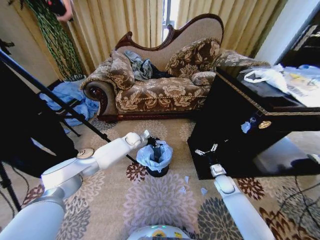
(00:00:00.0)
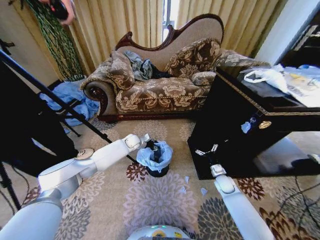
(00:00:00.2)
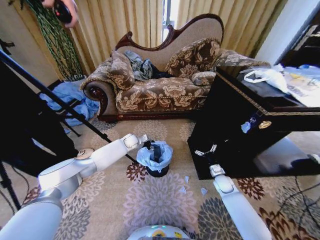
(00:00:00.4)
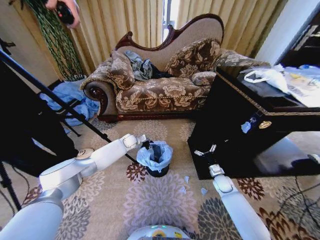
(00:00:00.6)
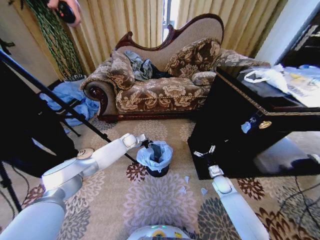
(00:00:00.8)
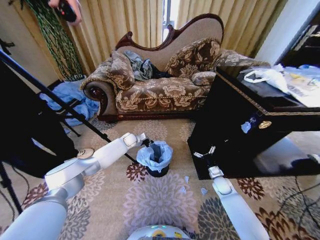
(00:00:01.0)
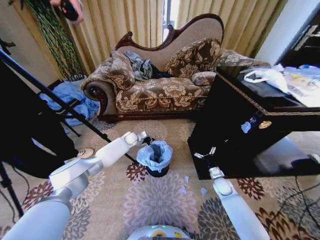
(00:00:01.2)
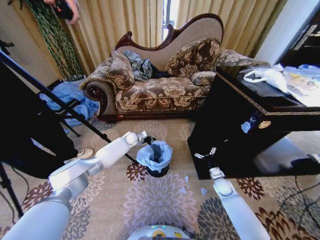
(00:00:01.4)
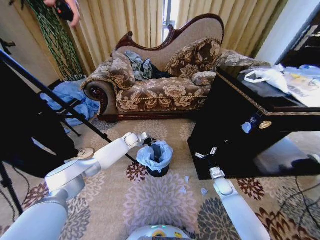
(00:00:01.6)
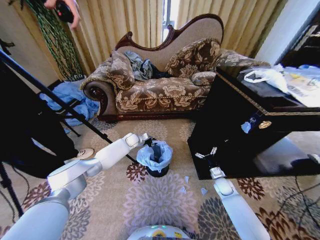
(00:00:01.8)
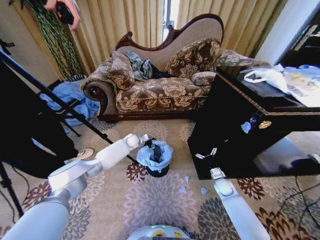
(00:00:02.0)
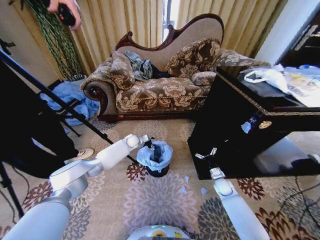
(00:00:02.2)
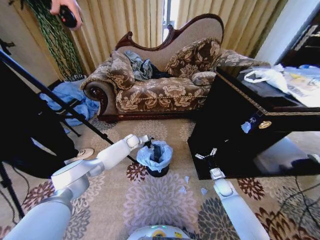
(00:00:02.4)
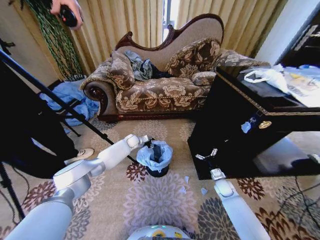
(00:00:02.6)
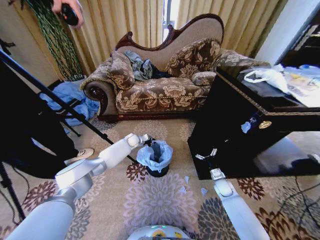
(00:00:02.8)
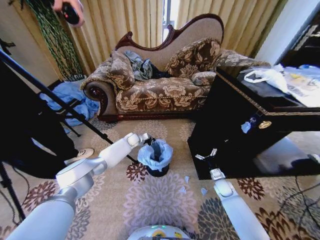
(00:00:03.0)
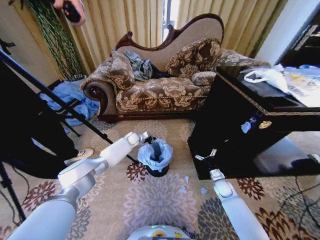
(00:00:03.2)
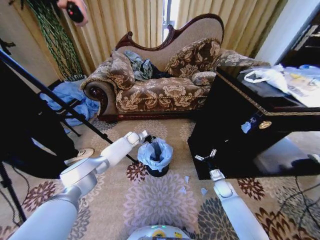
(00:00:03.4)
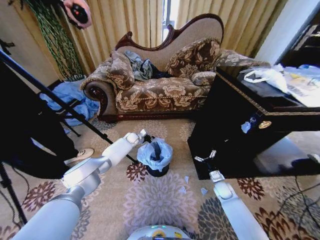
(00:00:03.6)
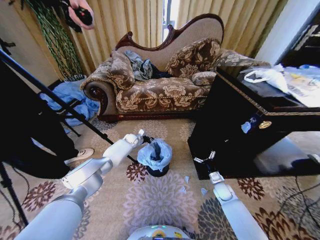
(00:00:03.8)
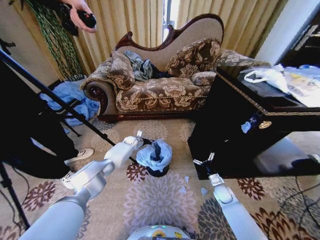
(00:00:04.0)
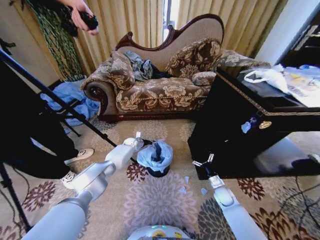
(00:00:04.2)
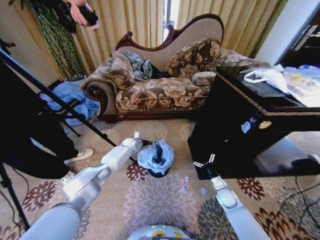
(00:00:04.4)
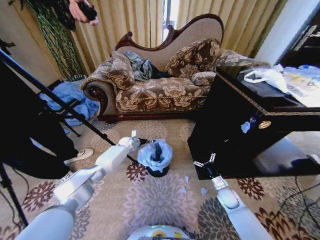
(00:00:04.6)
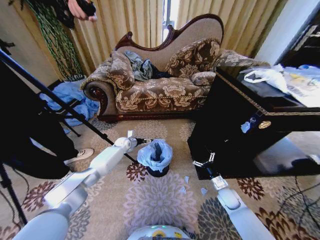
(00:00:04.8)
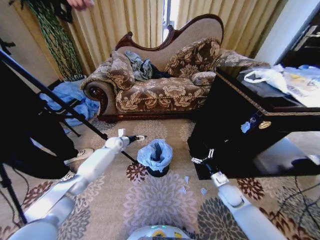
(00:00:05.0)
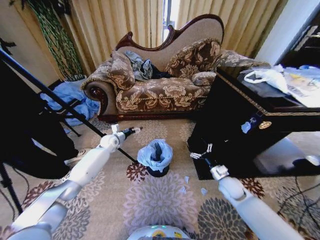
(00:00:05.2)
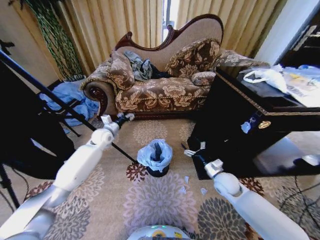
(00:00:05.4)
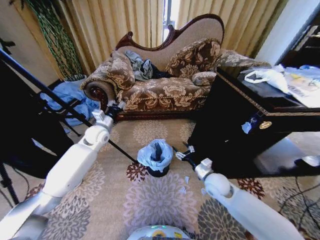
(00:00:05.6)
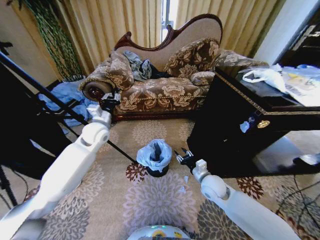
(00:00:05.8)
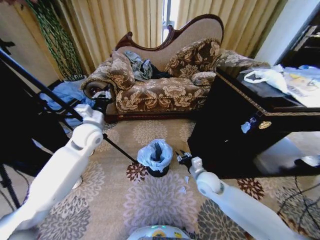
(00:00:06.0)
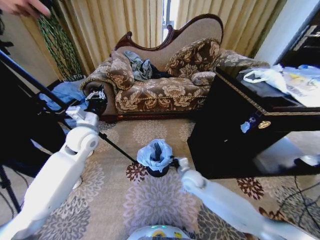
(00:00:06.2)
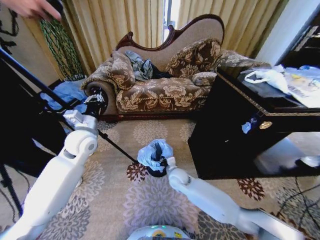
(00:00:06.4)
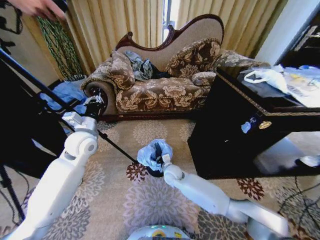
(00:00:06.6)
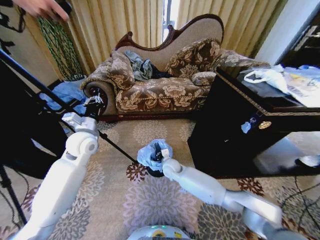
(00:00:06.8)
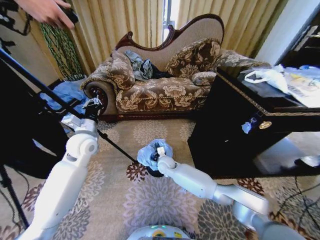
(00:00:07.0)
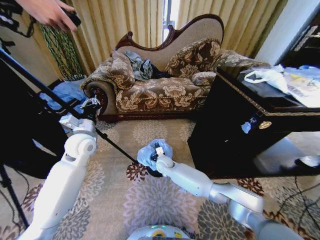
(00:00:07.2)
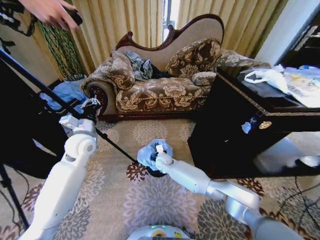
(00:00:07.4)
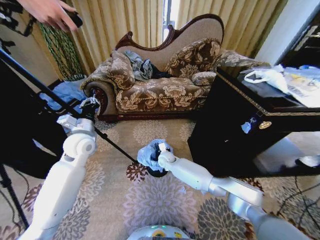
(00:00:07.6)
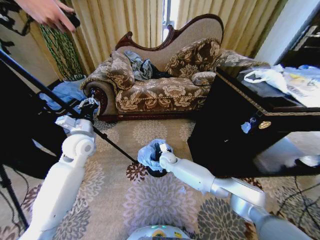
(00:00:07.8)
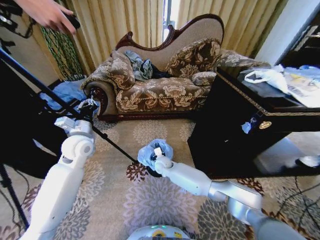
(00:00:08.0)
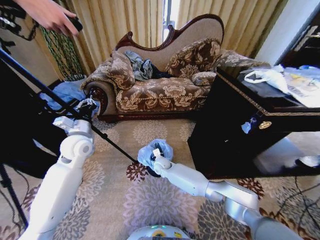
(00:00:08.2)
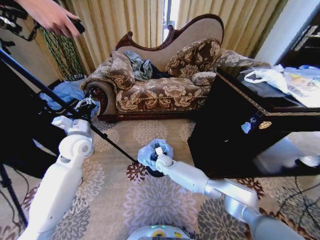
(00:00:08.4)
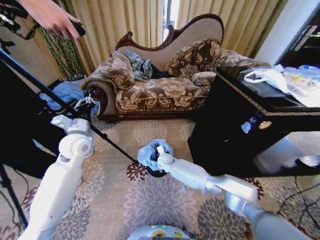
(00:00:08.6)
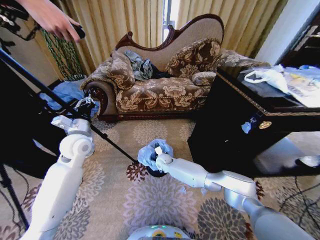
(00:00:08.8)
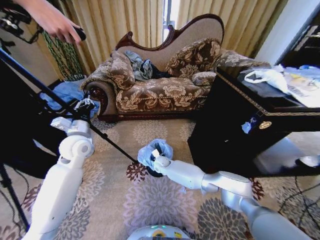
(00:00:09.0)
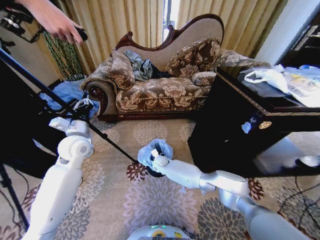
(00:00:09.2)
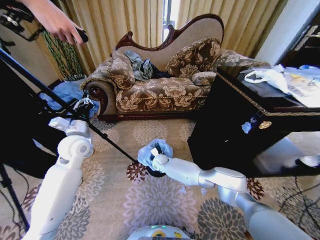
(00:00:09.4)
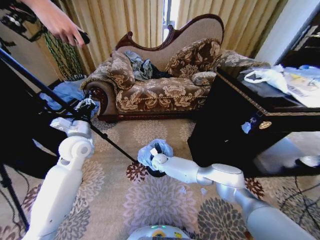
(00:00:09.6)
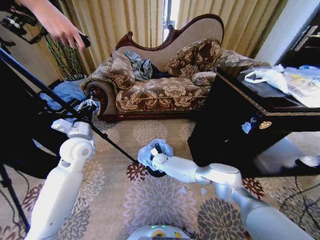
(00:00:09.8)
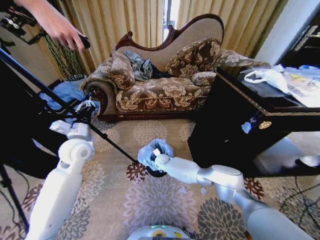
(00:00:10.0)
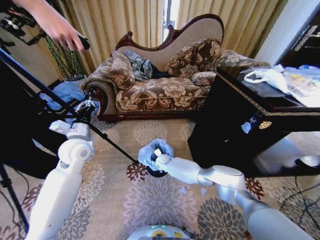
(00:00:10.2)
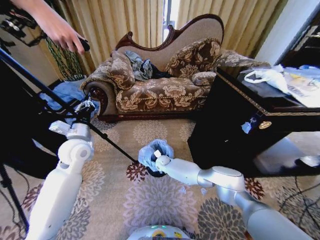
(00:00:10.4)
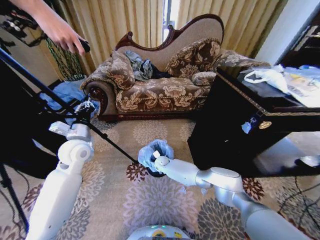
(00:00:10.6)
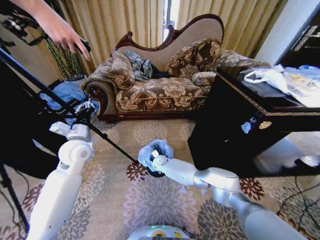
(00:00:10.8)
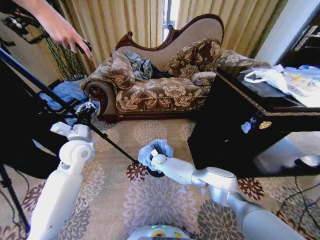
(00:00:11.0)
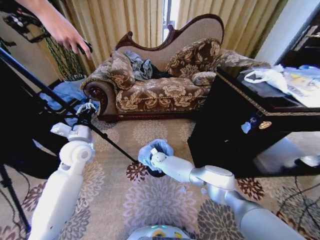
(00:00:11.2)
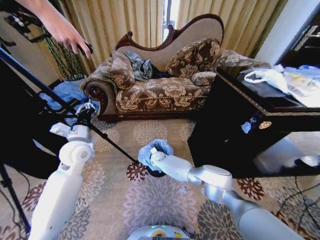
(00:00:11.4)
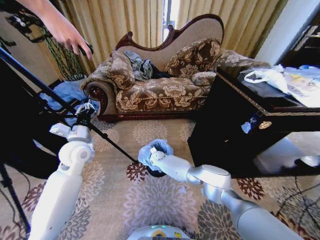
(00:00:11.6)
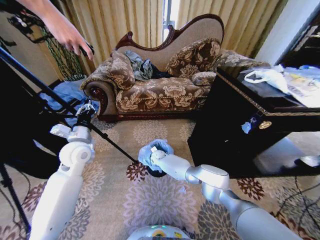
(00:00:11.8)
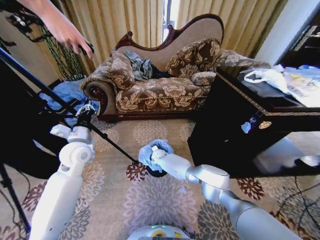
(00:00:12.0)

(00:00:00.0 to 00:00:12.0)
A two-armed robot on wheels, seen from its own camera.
Task of the whole recording: Place a garbage bag over the trash bin.
00:00:00.0 - 00:00:01.6: The left gripper closes up.
00:00:01.6 - 00:00:03.0: The left gripper opens, then closes again.
00:00:04.4 - 00:00:06.0: The left gripper travels upward and backward by roughly 35 cm, and opens, then closes once more. Meanwhile the right gripper travels to the left and upward by some 20 cm, and closes.
00:00:06.0 - 00:00:07.6: The right gripper travels to the left and forward by approximately 20 cm.
00:00:07.6 - 00:00:09.0: There are only small adjustments of the grippers.
00:00:09.0 - 00:00:10.4: The grippers stay close to where they were, moving slightly.
00:00:10.4 - 00:00:12.0: The right gripper shifts by some 5 cm, and opens its fingers.

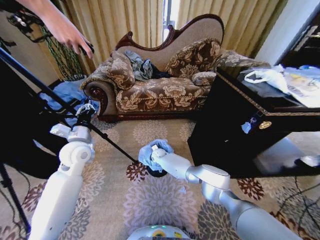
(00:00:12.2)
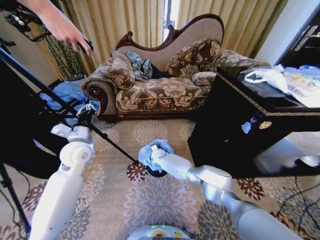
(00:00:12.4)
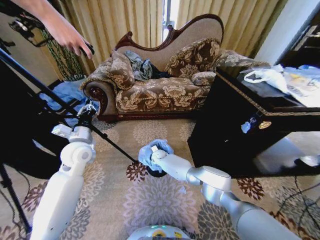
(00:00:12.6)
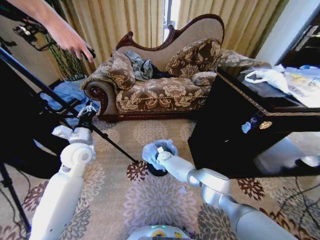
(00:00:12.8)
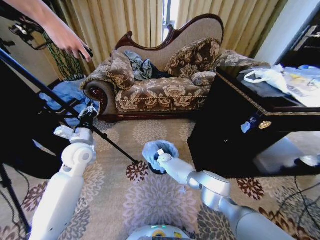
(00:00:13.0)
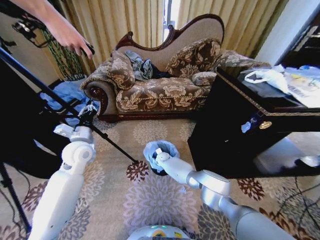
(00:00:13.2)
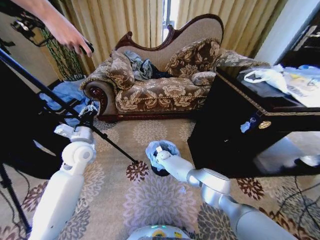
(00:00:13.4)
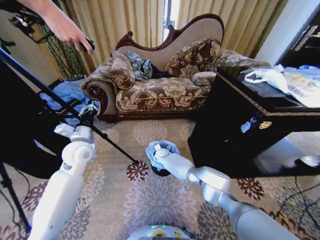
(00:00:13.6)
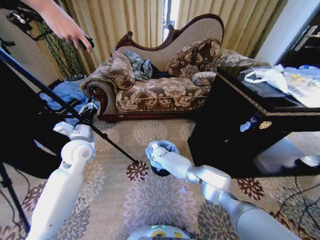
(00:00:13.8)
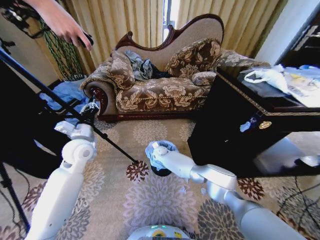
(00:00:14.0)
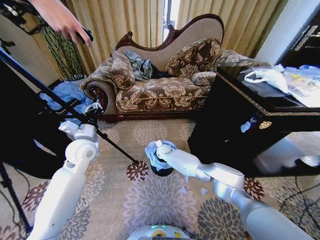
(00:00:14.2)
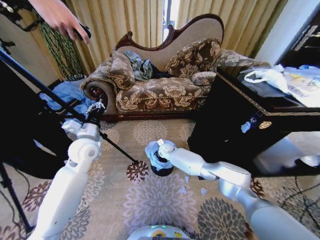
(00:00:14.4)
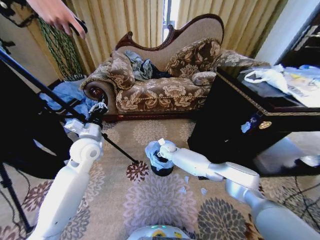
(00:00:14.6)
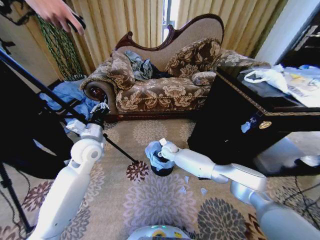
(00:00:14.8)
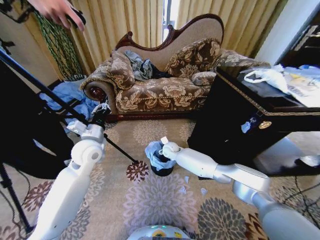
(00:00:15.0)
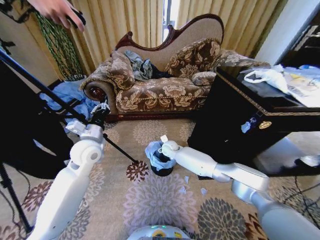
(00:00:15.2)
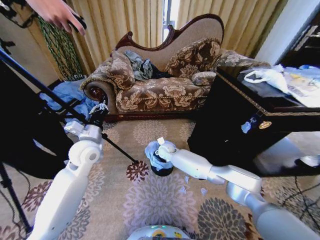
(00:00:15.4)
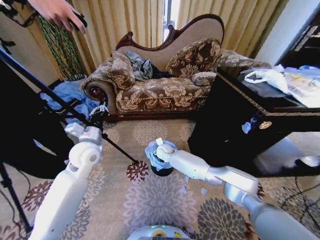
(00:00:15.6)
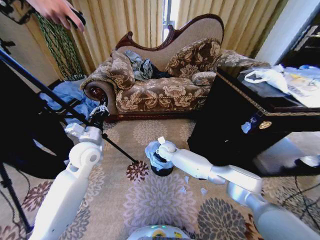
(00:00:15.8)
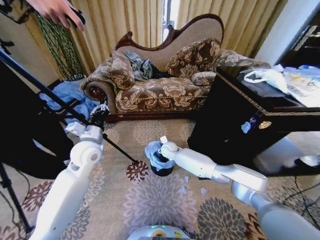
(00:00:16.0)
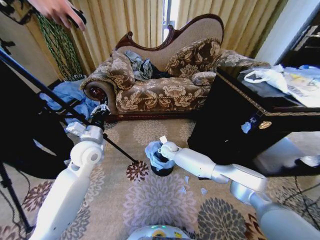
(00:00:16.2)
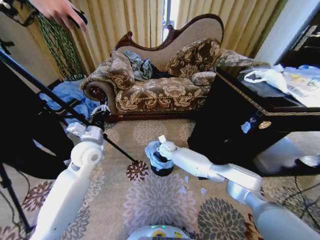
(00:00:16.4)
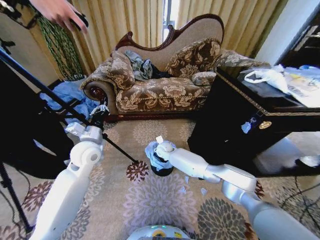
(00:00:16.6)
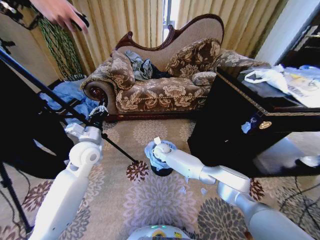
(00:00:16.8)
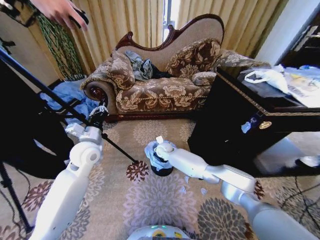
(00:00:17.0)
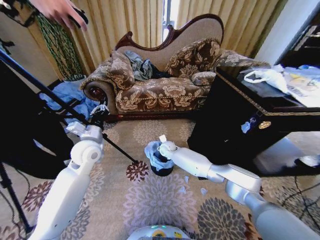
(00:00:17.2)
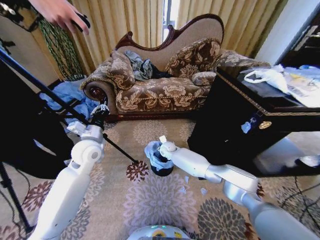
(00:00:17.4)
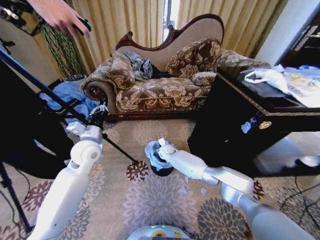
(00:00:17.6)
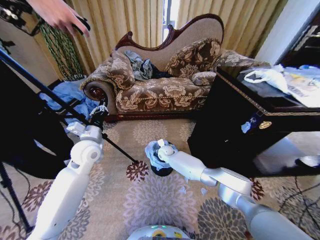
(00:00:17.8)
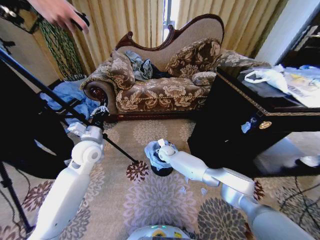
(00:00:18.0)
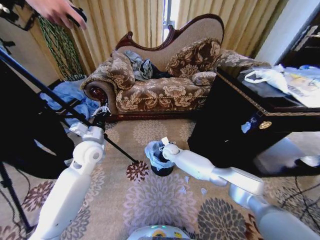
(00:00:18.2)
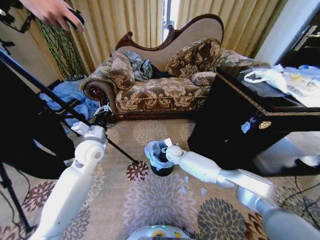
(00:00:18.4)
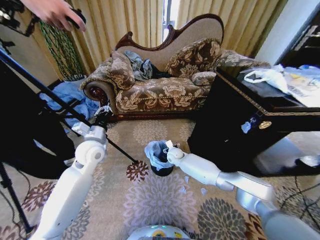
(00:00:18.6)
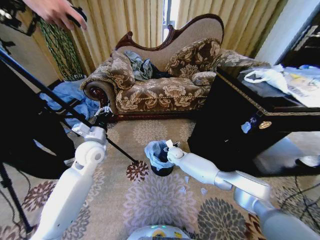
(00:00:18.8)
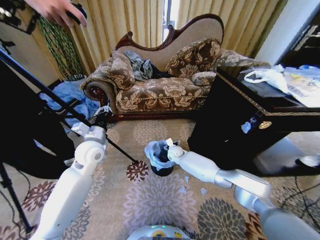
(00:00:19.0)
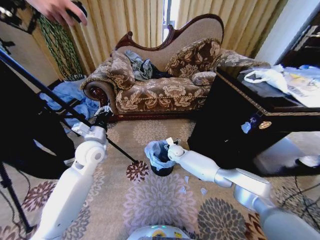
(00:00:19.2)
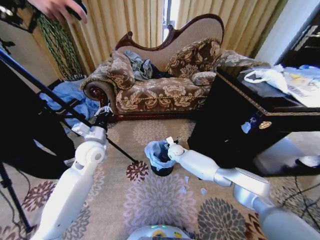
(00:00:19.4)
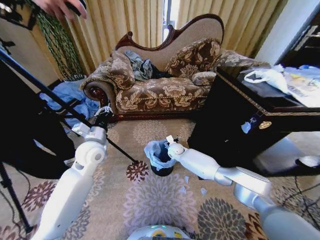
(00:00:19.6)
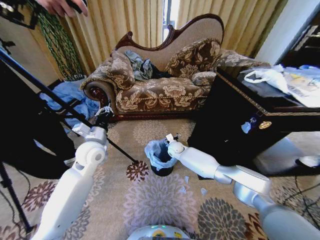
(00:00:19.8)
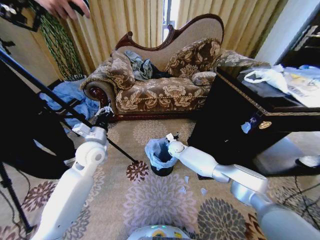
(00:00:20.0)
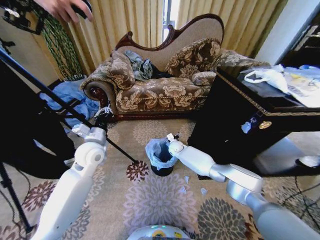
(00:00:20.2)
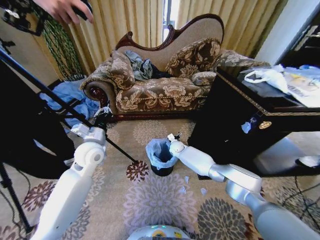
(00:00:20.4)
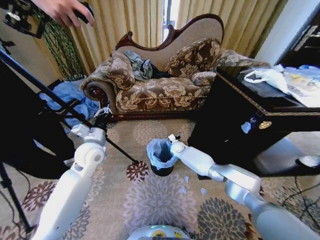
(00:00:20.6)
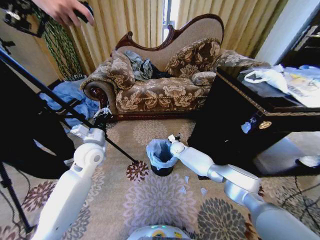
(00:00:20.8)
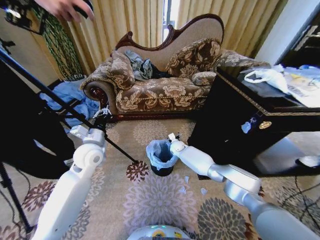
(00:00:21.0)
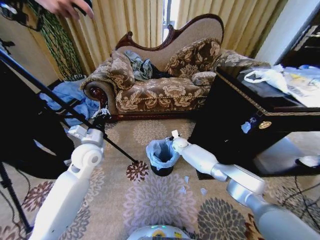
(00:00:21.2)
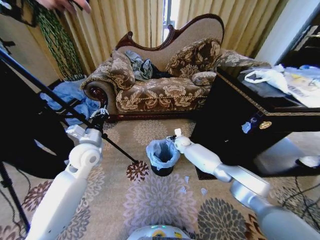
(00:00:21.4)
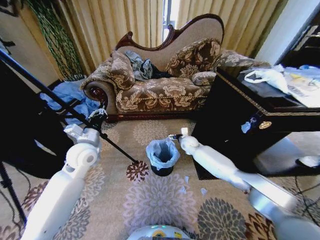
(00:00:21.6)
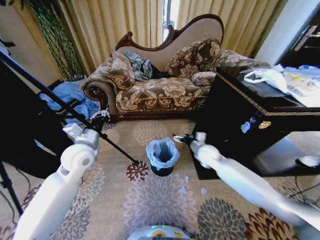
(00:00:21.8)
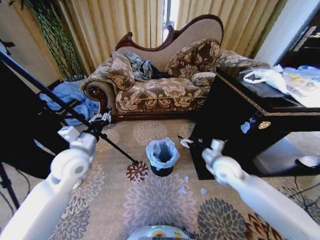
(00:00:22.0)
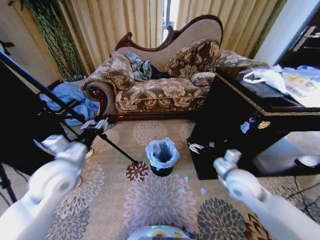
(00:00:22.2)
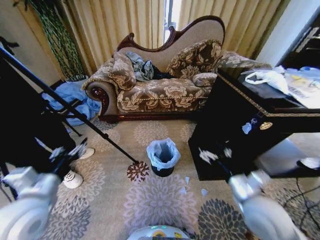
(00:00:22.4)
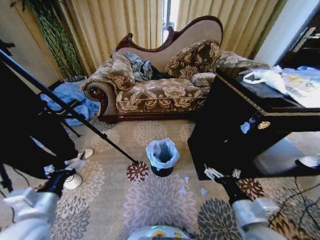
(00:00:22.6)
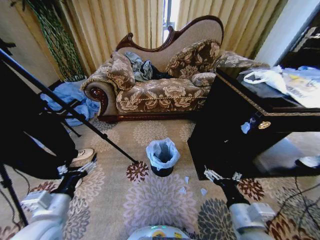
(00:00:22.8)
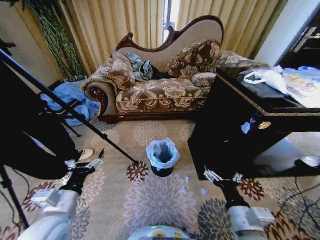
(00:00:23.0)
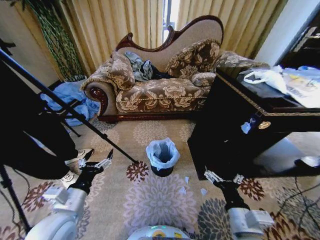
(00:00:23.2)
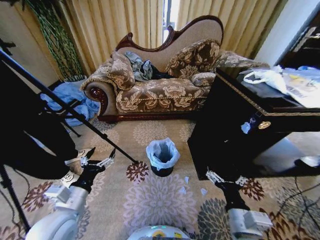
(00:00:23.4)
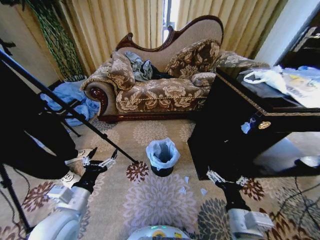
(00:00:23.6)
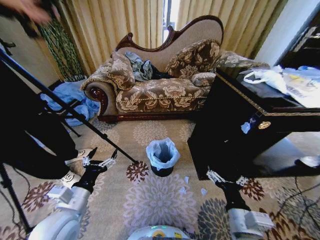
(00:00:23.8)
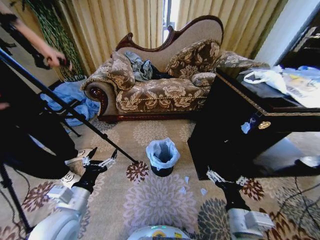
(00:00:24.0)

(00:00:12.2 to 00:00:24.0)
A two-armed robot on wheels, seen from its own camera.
Task of the whole recording: Place a garbage bag over the trash bin.
00:00:13.6 - 00:00:15.2: The right gripper is displaced upward by roughly 10 cm.
00:00:15.2 - 00:00:18.2: The grippers stay close to where they were, moving slightly.
00:00:18.2 - 00:00:19.6: The grippers stay close to where they were, moving slightly.
00:00:19.6 - 00:00:21.0: The right gripper ends up approximately 5 cm from where it was.
00:00:21.0 - 00:00:22.6: The right gripper moves backward, roughly 40 cm, while the left gripper is displaced backward by some 20 cm, and opens its fingers.
00:00:22.6 - 00:00:24.0: The left gripper heads to the right, covering some 5 cm.
